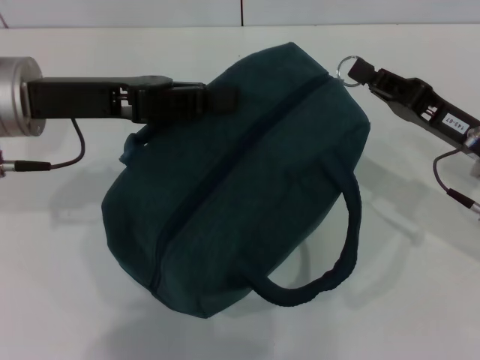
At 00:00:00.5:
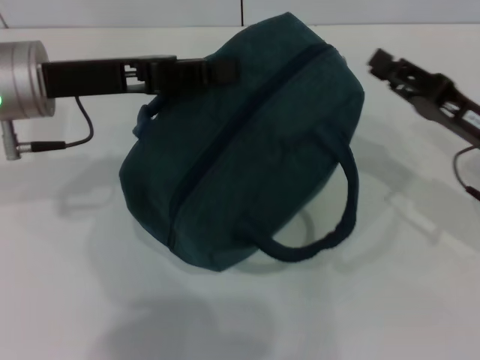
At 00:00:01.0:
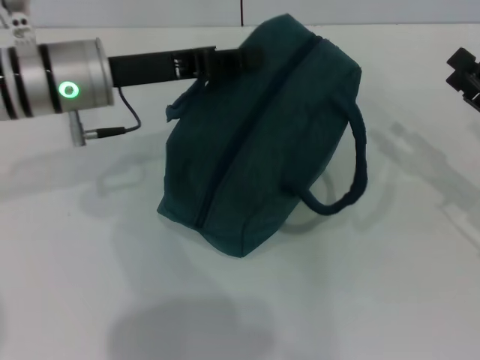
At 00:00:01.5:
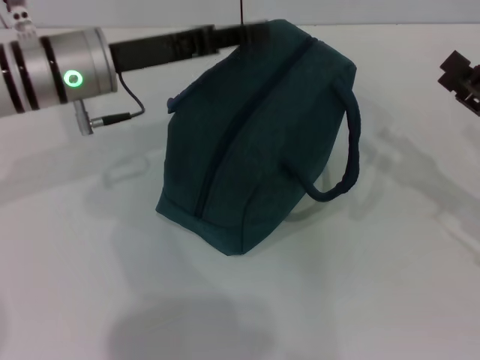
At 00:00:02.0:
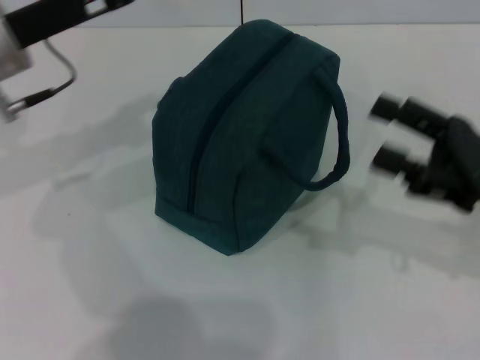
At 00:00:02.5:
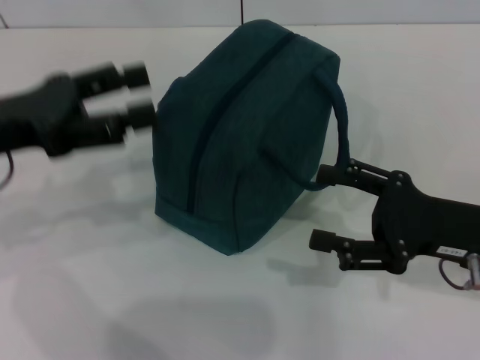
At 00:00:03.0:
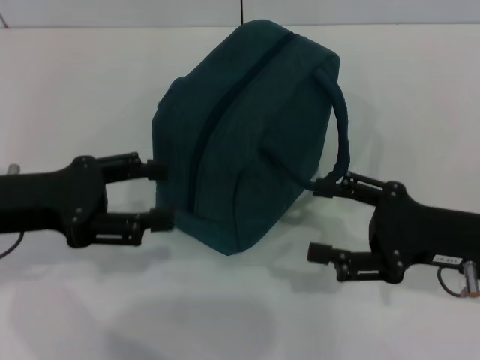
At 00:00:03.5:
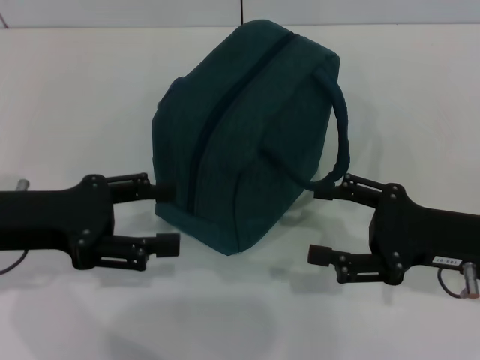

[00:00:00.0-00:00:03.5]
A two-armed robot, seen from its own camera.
Step, 00:00:00.5 to 00:00:01.5: Hold the lunch bag with your left hand.
00:00:00.0 to 00:00:02.0: The left gripper opens its fingers. The right gripper ends up about 5 cm from where it was, and opens its fingers.
00:00:02.0 to 00:00:03.5: The left gripper goes approximately 10 cm backward and downward.
